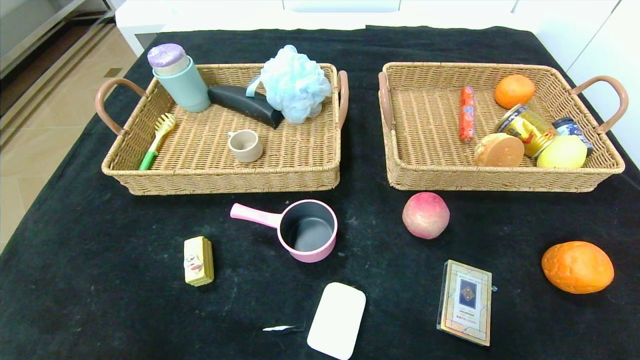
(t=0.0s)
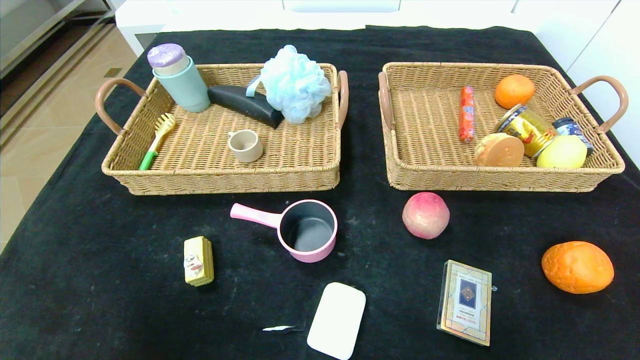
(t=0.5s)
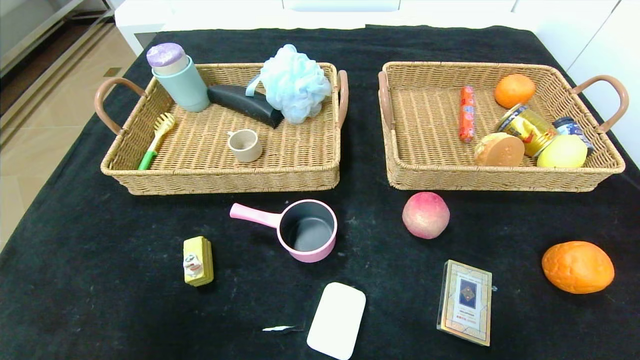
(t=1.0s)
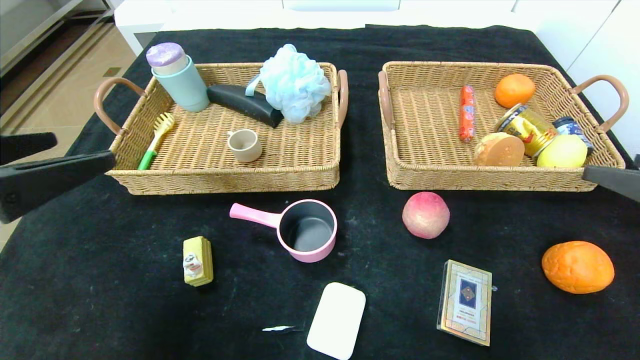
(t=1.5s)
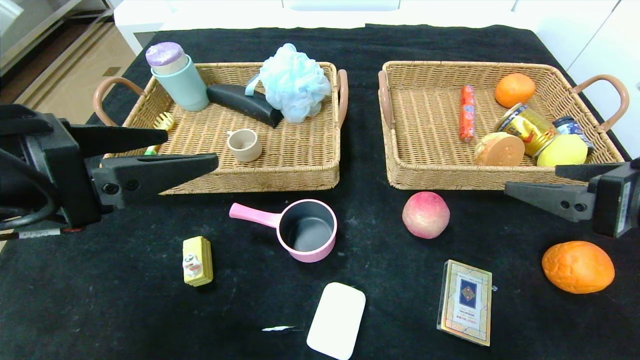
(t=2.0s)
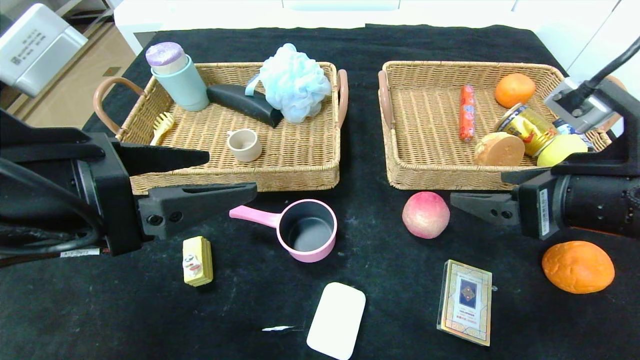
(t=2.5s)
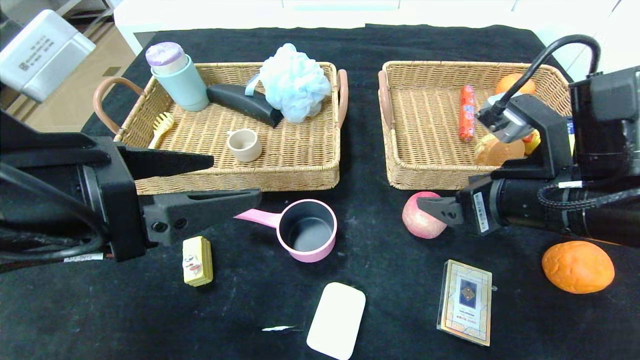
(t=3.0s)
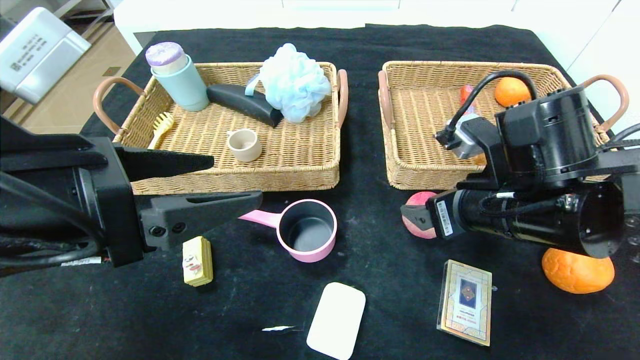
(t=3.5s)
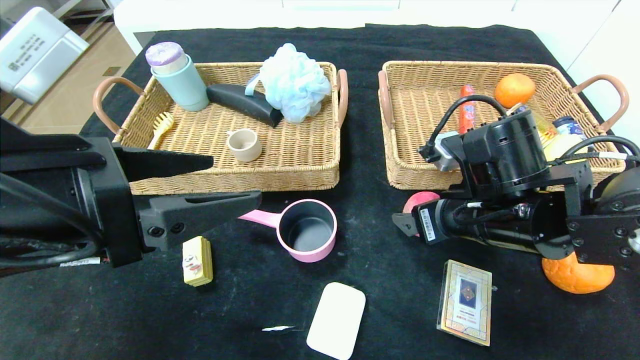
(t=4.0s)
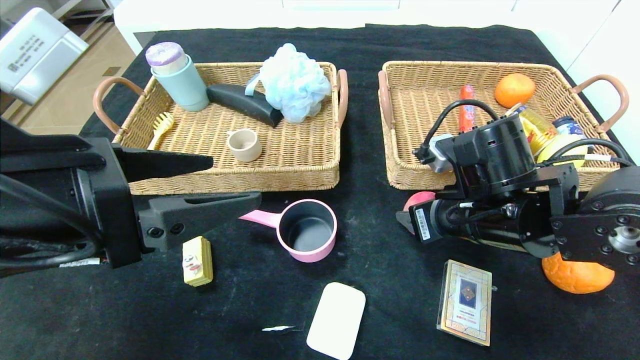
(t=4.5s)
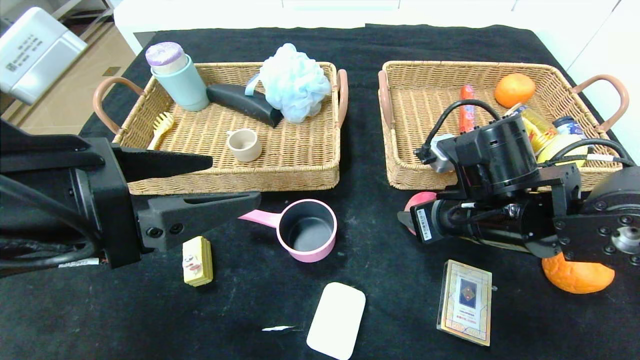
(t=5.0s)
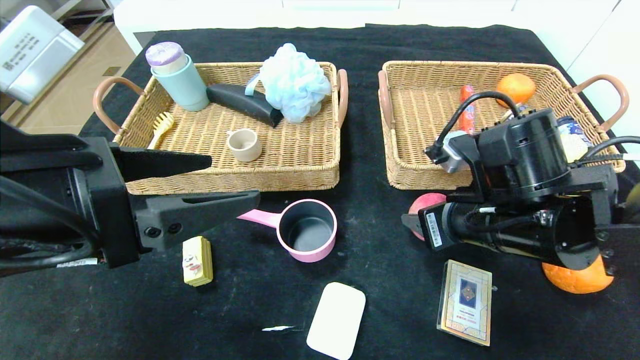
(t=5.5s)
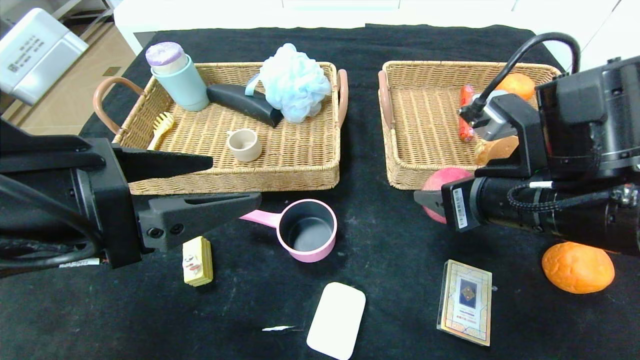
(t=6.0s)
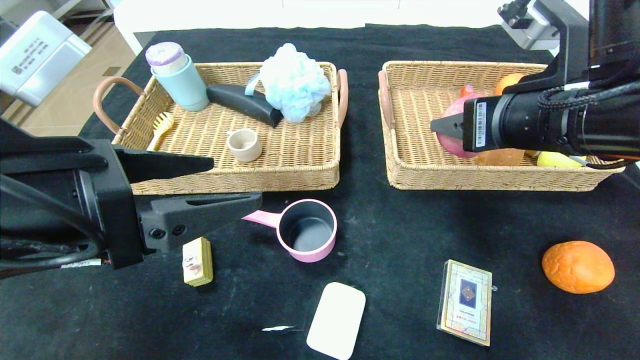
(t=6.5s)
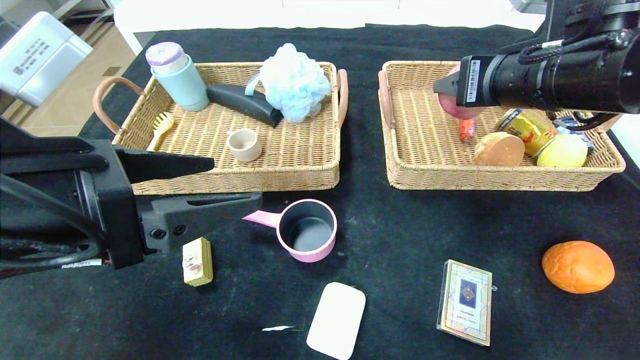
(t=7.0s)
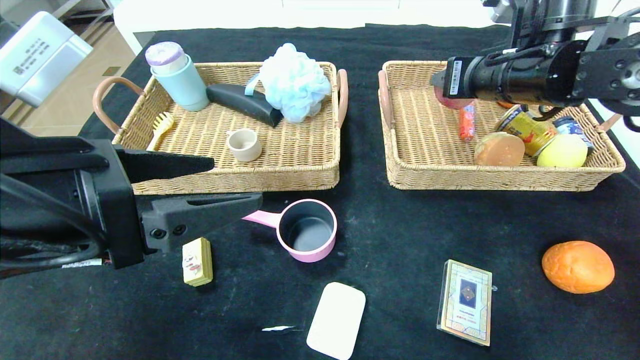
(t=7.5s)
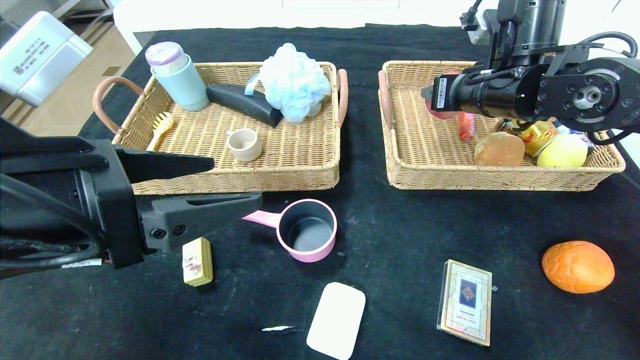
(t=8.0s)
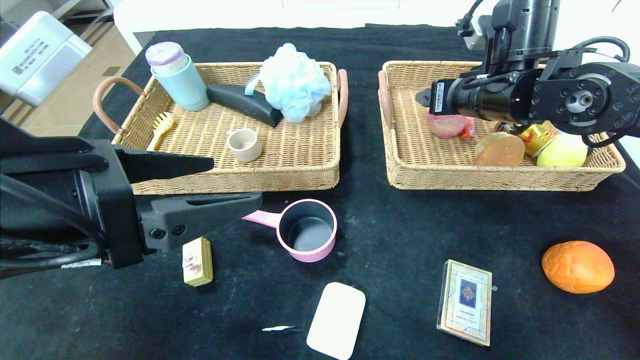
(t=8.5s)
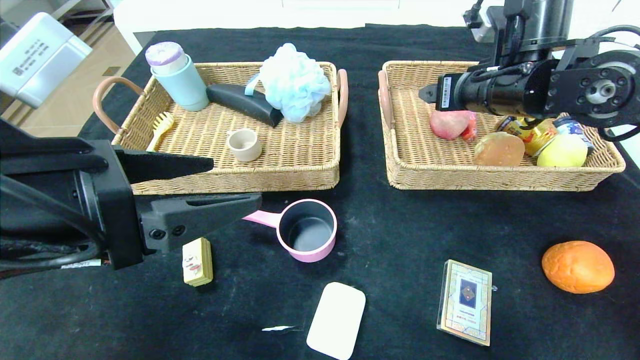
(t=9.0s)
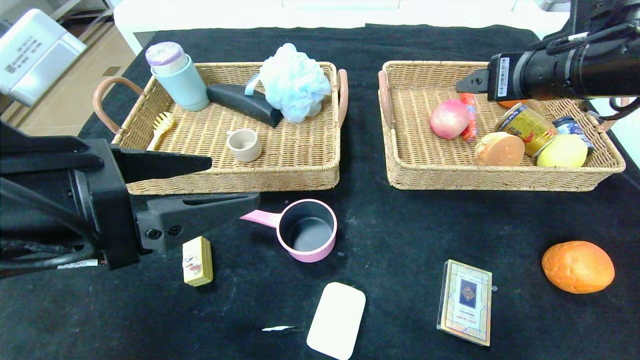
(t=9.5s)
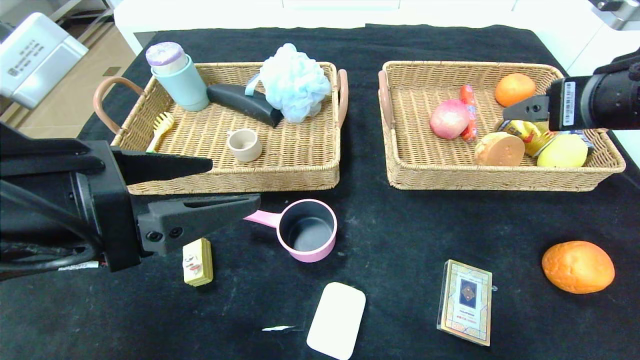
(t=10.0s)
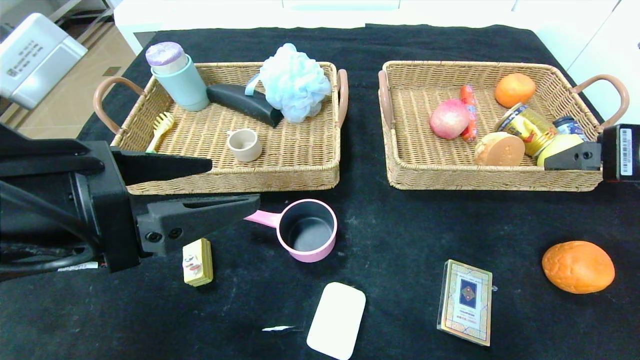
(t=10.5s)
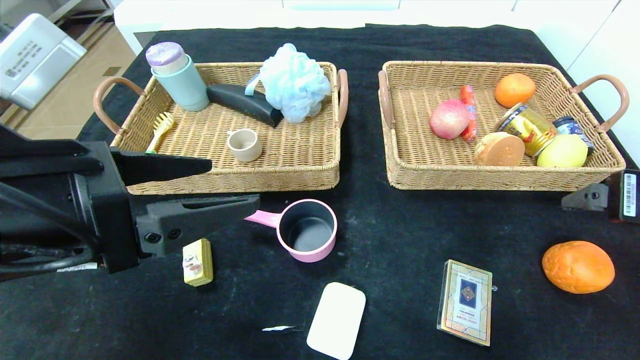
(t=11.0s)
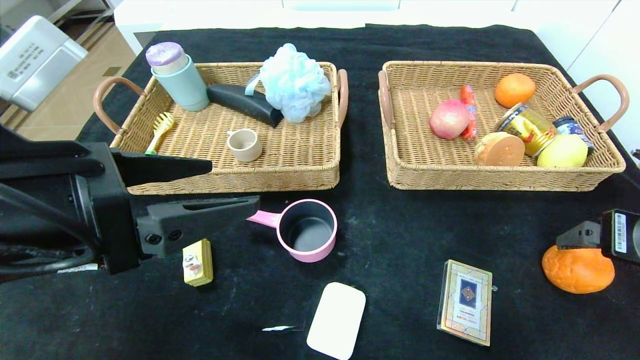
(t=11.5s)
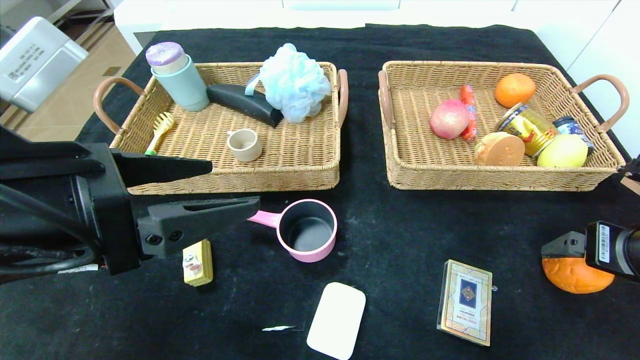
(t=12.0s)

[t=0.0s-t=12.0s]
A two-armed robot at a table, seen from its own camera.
Step, t=0.0s to t=11.0s: Pick up the peach and put it in the right basket.
t=0.0s to t=2.0s: The right gripper shifts approximately 30 cm forward and upward. The left gripper heads upward and forward, covering some 30 cm.
t=2.0s to t=4.0s: The right gripper travels to the left, forward and downward by about 15 cm.
t=4.0s to t=6.0s: The right gripper changes place by approximately 5 cm, and closes its fingers.
t=6.0s to t=8.0s: The right gripper shifts some 15 cm forward.
t=8.0s to t=10.0s: The right gripper is displaced backward and to the right by about 15 cm, and opens up.
t=10.0s to t=12.0s: The right gripper heads downward and to the right, covering about 15 cm.

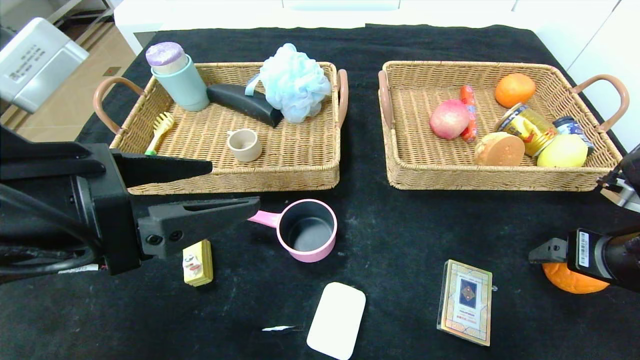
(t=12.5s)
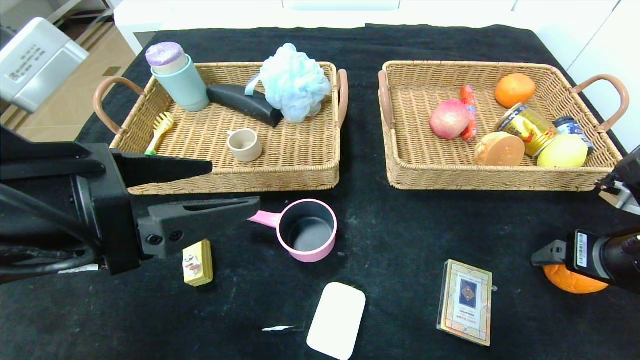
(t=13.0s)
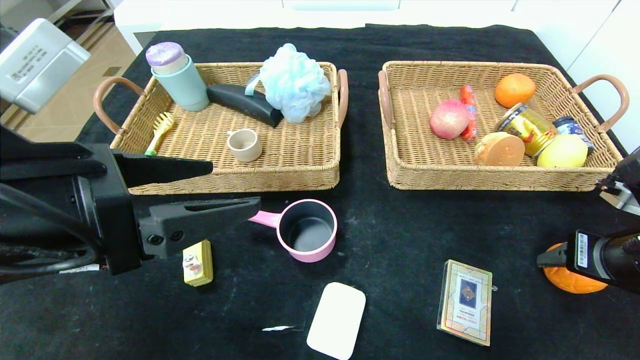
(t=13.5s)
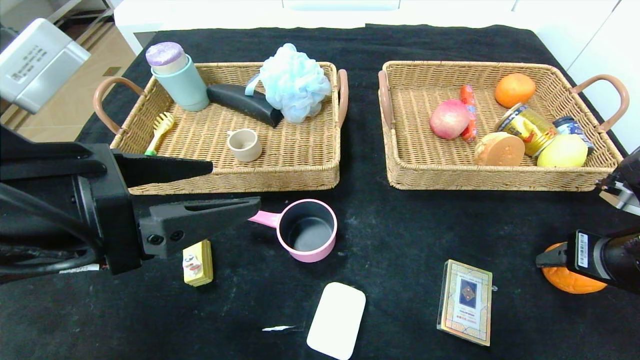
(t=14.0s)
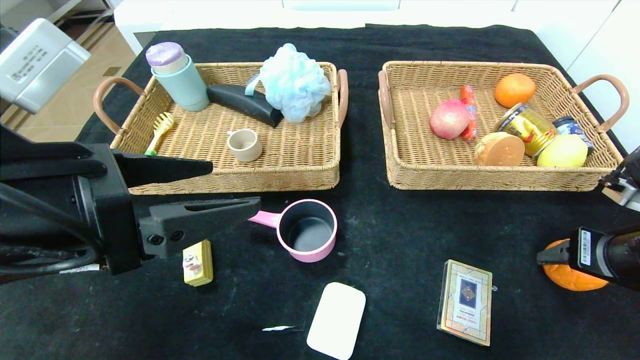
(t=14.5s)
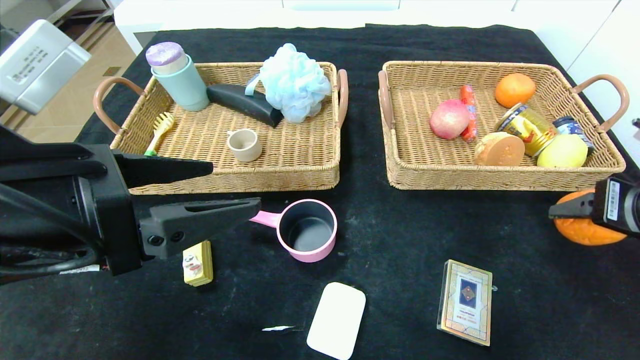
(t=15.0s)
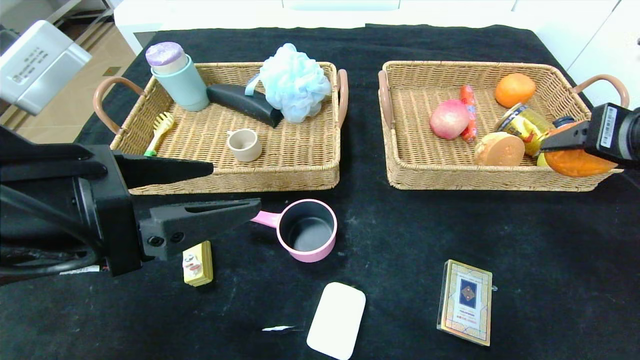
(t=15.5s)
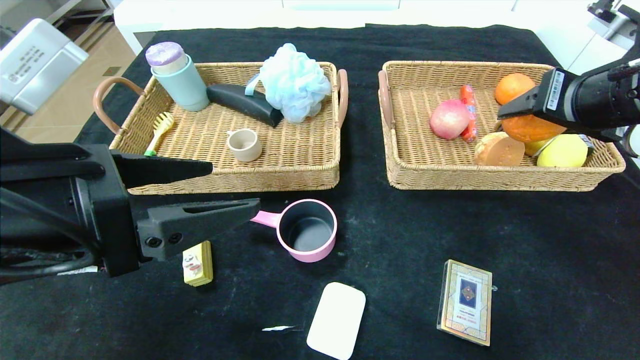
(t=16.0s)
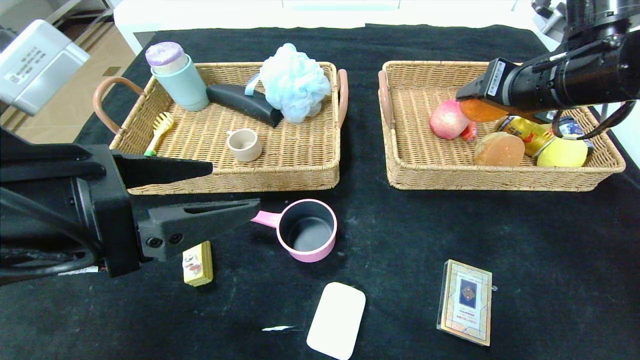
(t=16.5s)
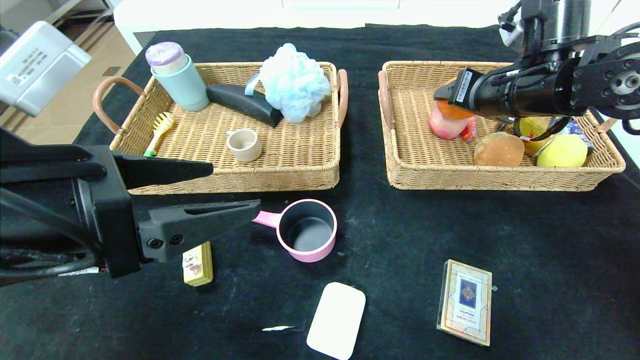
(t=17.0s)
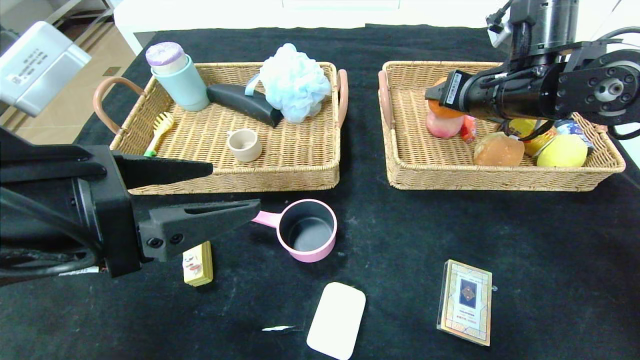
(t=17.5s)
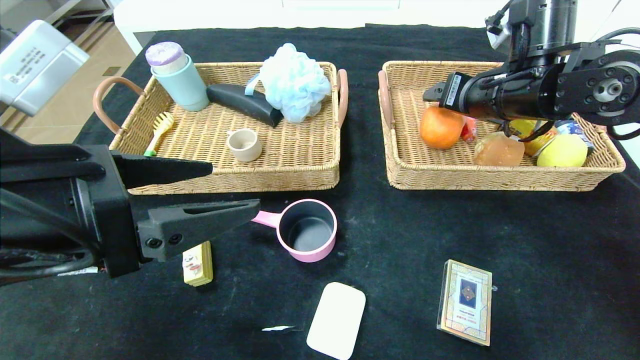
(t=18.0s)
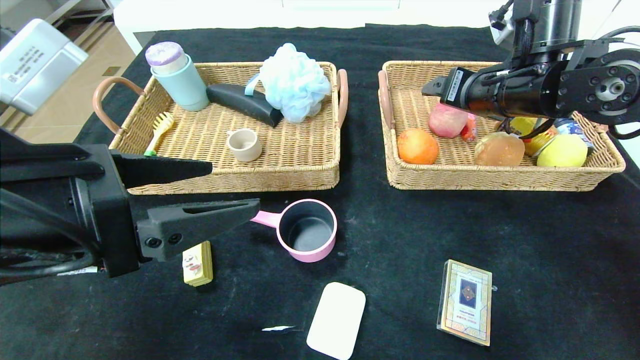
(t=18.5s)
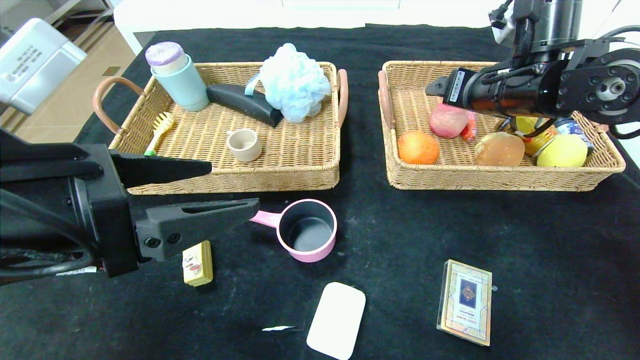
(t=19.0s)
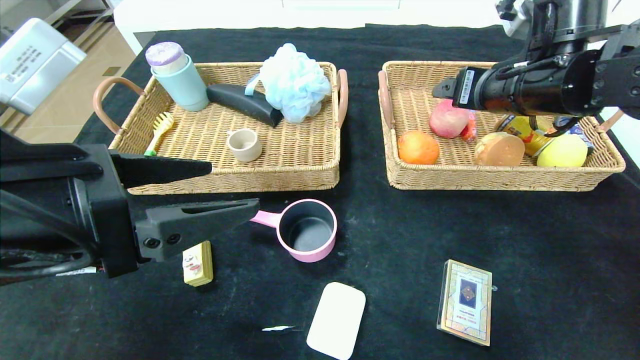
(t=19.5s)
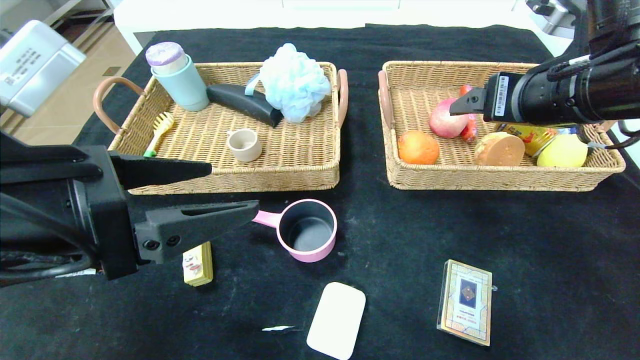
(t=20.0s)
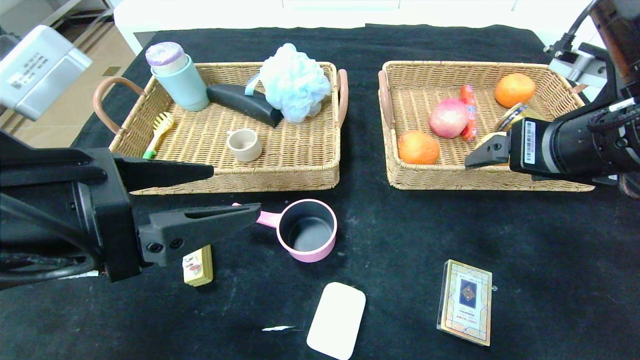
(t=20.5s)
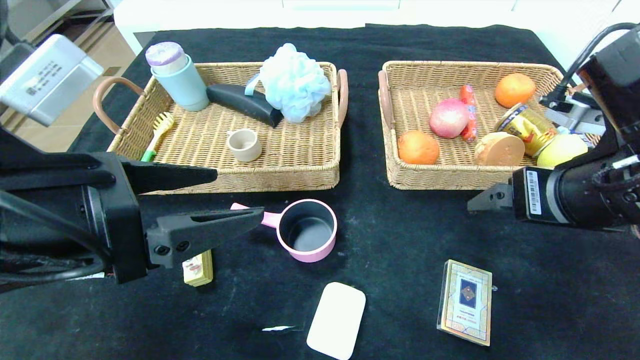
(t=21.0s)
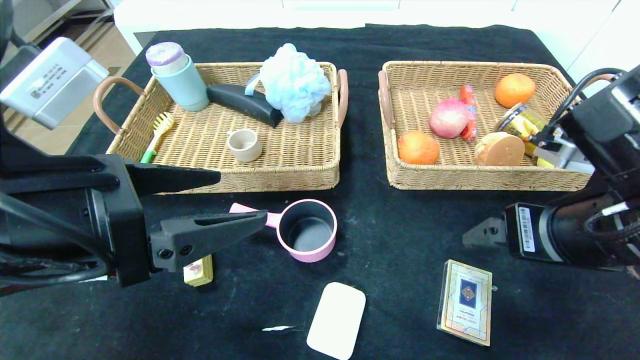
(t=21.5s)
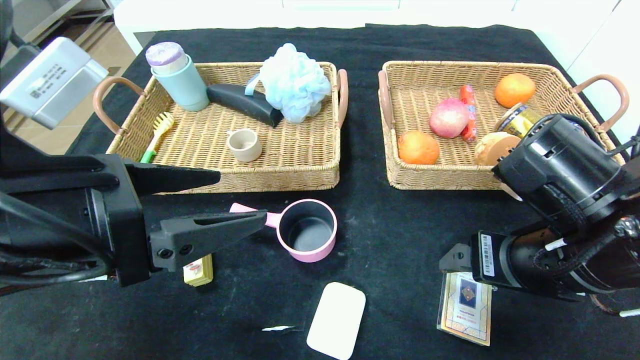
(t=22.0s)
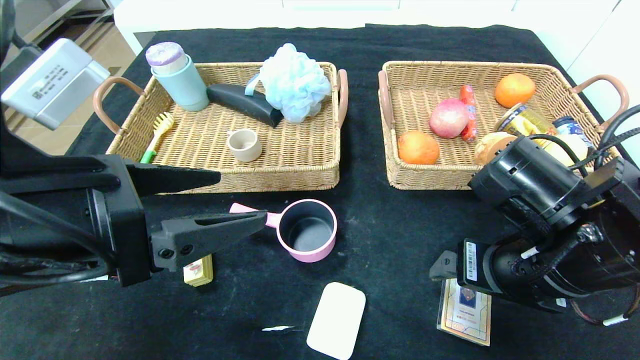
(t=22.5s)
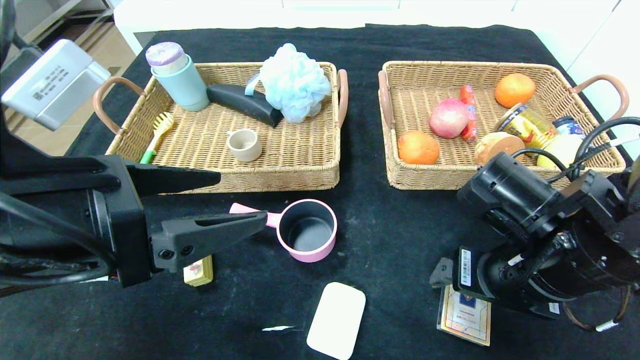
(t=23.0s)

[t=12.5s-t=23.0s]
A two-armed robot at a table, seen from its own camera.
Step, t=12.5s to t=21.0s: Pick up the orange and put it in the right basket.
t=12.5s to t=14.5s: The right gripper closes.
t=14.5s to t=16.5s: The right gripper moves upward, forward and to the left, about 20 cm.
t=16.5s to t=19.0s: The right gripper ends up some 5 cm from where it was.
t=19.0s to t=21.0s: The right gripper travels backward by about 15 cm.
t=21.0s to t=23.0s: The right gripper goes roughly 10 cm downward.
